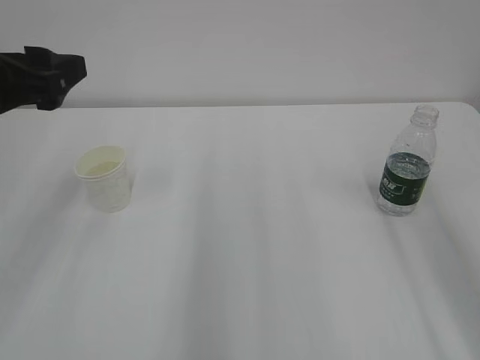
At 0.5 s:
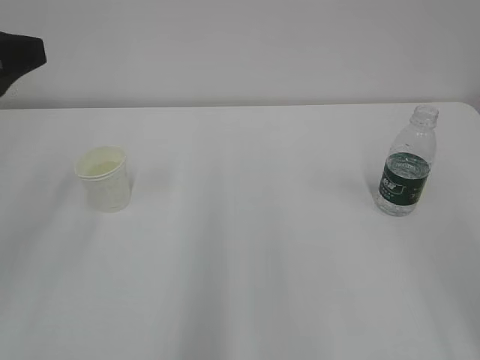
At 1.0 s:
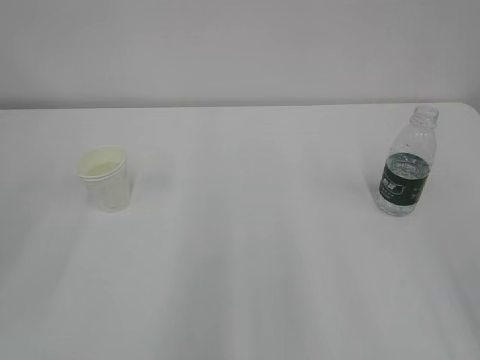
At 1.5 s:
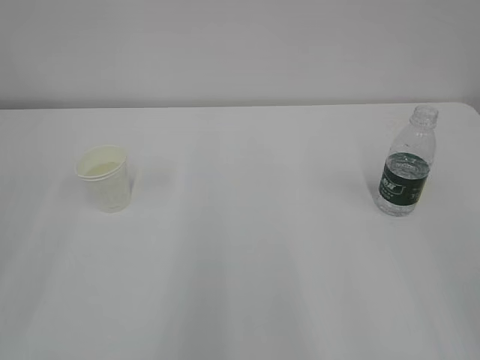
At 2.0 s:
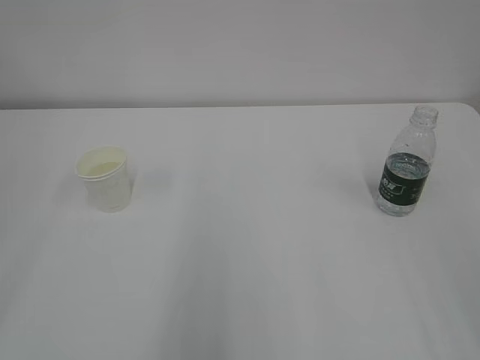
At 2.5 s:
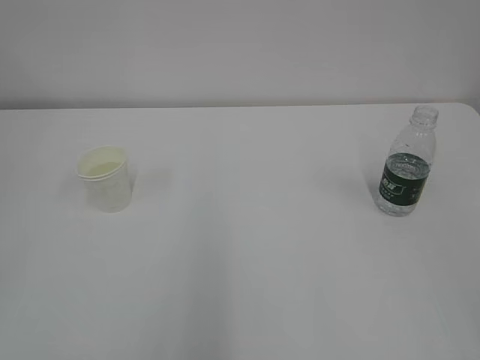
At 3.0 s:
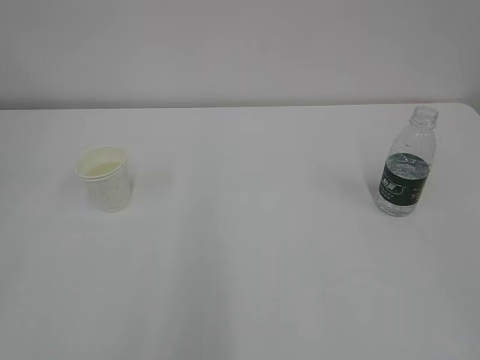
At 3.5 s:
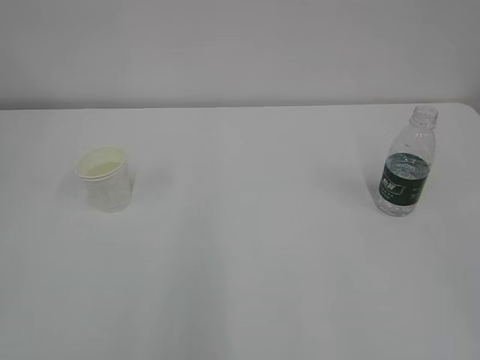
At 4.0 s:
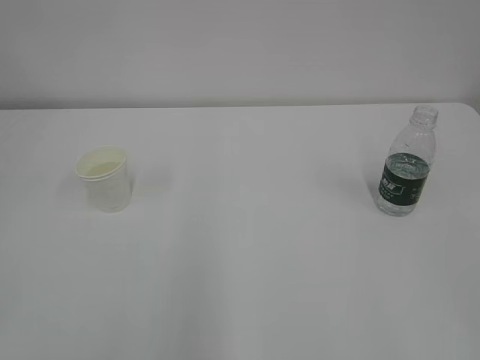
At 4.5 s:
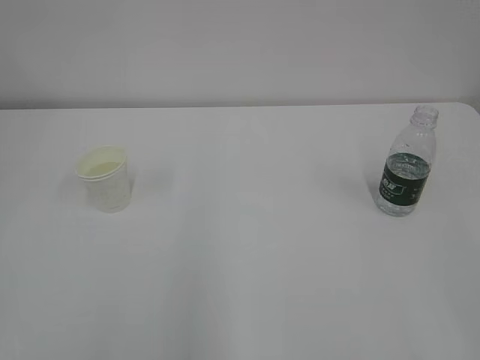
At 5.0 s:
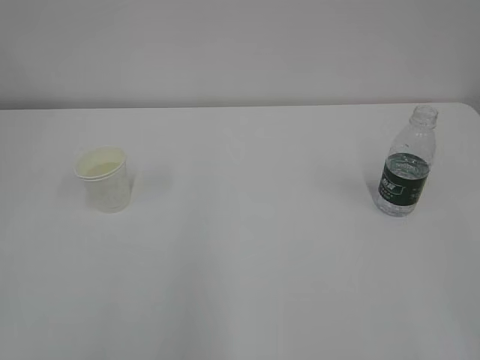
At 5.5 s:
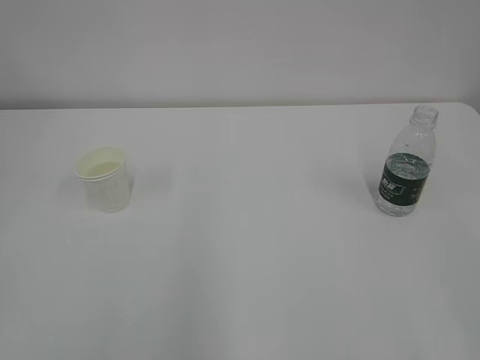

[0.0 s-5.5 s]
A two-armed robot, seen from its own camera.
0.0 to 2.0 s: The left gripper moves backward, approximately 20 cm.

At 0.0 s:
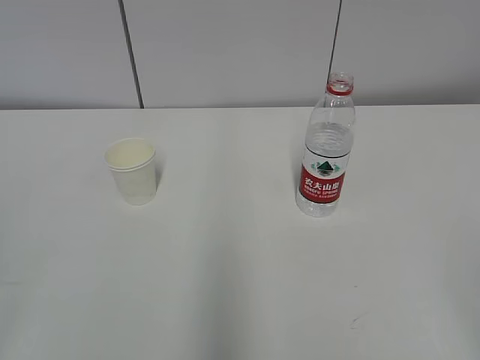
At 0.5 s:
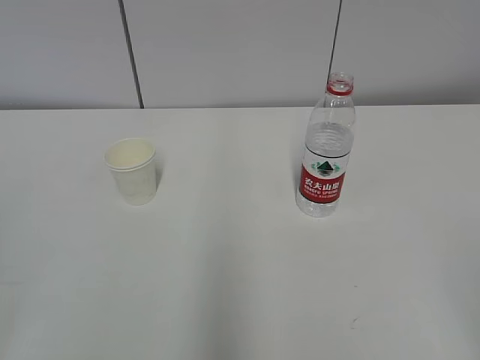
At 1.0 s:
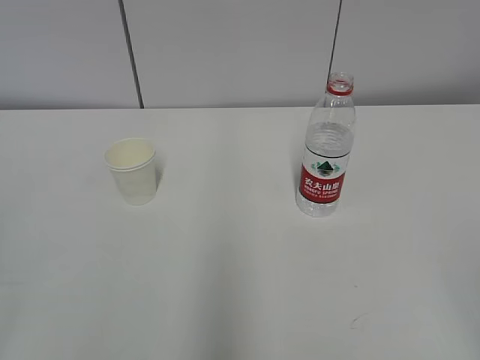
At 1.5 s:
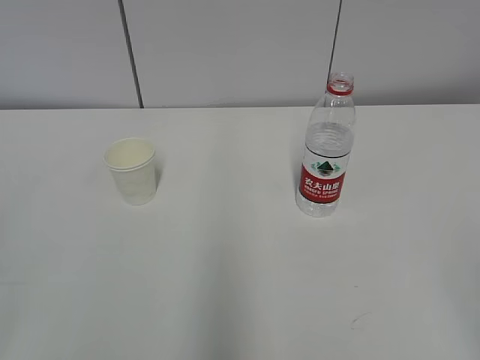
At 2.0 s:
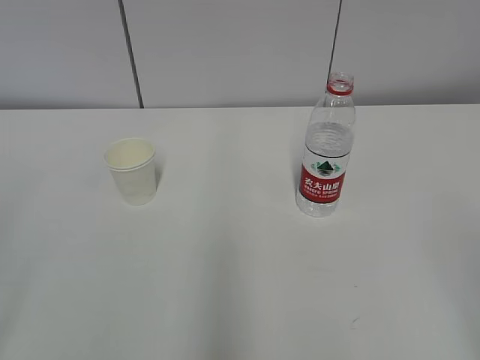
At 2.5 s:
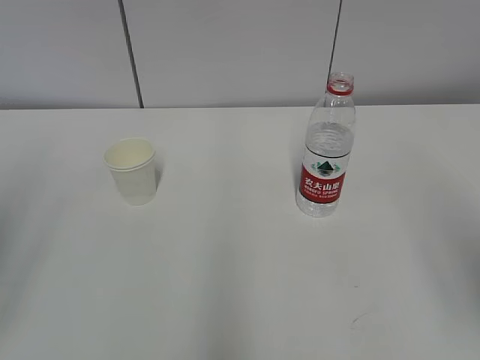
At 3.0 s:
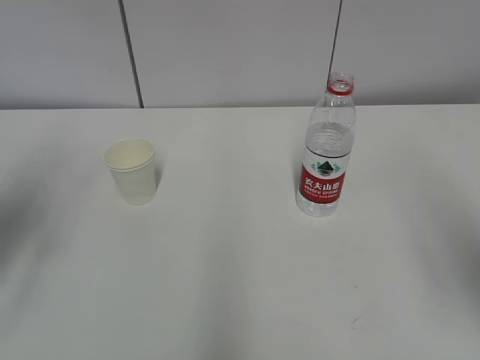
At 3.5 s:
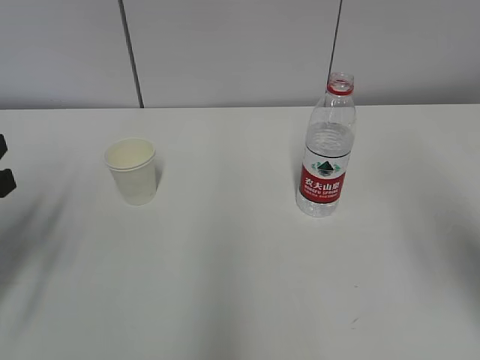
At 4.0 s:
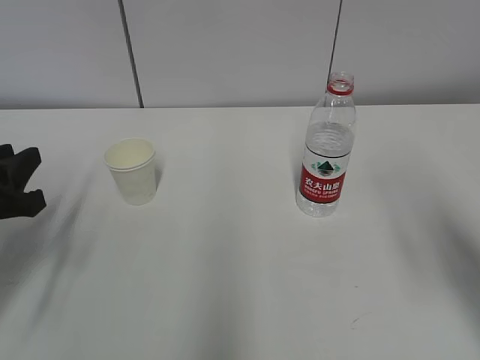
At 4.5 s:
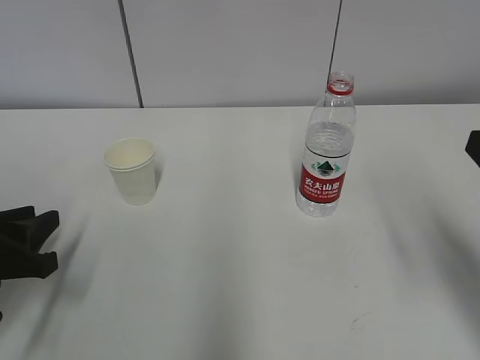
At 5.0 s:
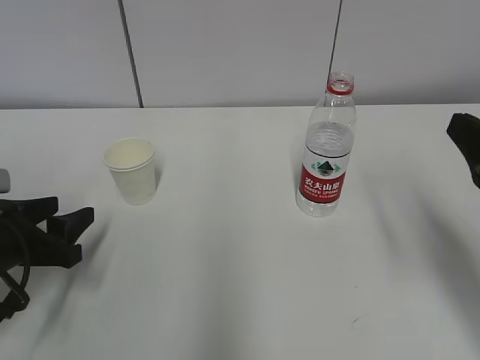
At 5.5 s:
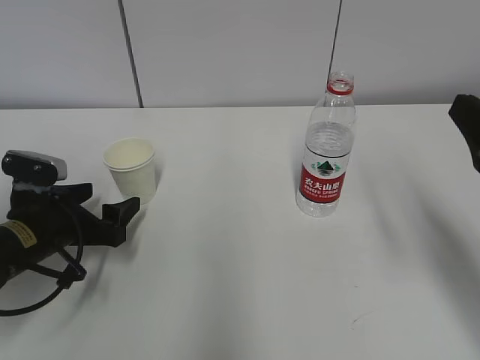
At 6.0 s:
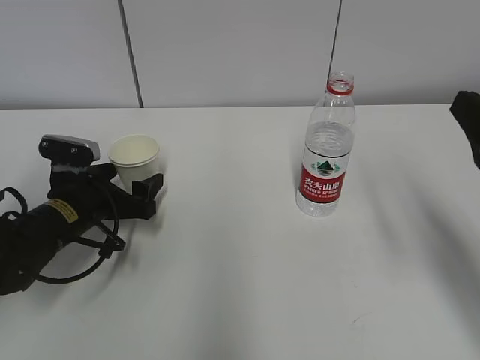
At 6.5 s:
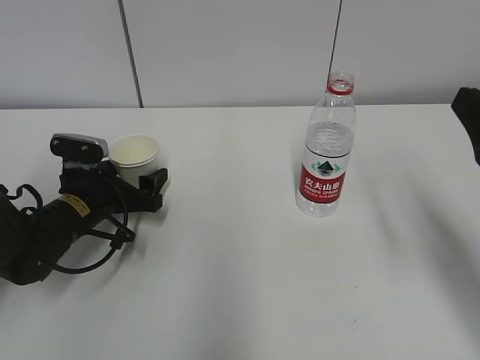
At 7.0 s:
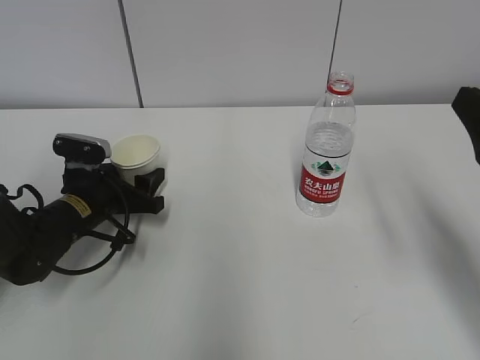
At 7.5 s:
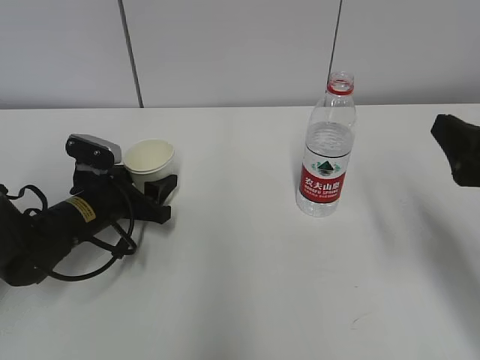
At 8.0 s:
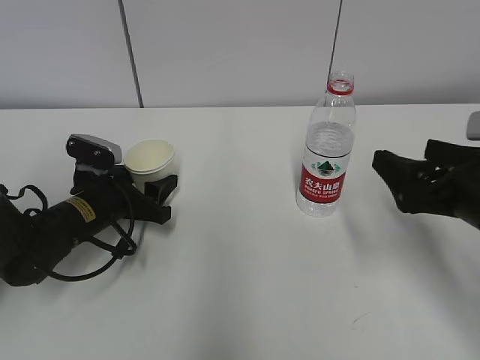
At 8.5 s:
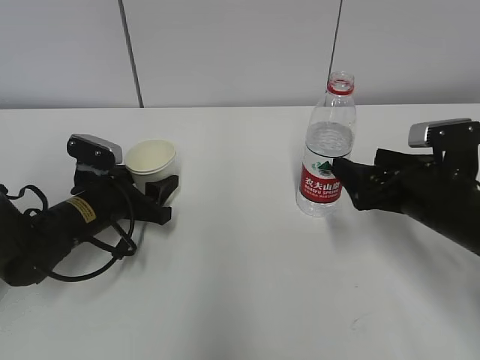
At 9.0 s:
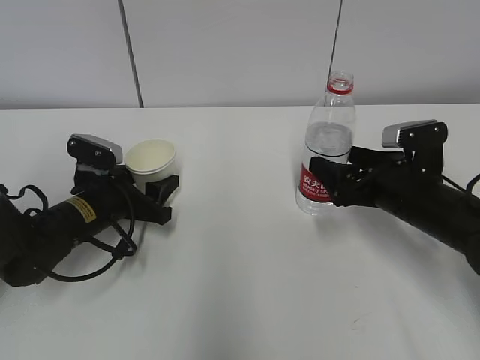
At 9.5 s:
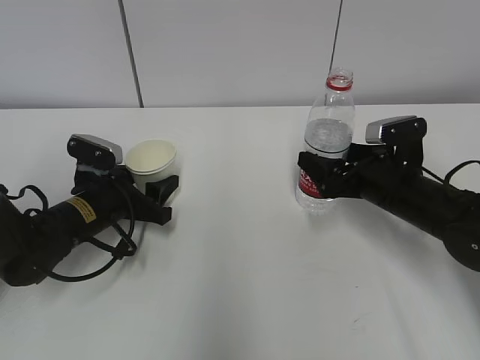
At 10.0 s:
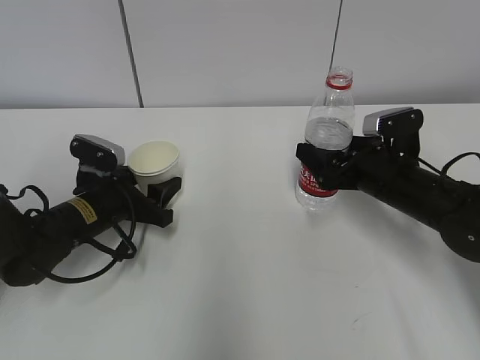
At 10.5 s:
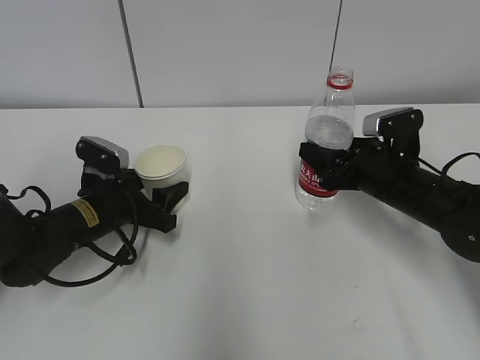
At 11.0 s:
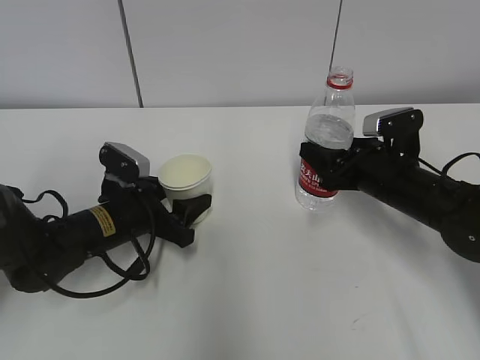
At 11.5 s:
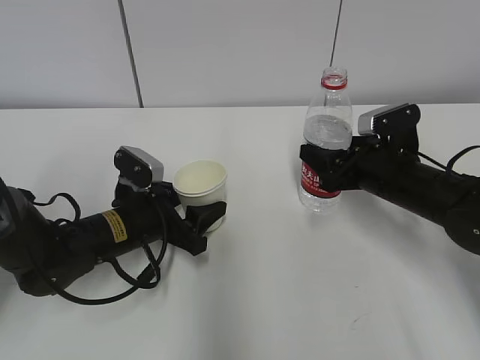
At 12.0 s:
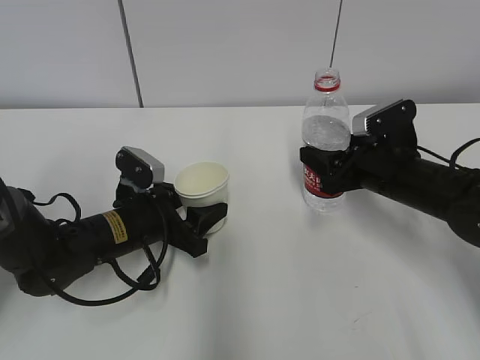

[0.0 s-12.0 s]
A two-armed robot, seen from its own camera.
Step, 0.0 to 6.0 s: Grab the paper cup with the left hand.
Step, 6.5 to 9.0 s: Grab the water bottle with the right hand.
2.0 to 4.0 s: The left gripper is displaced forward and downward by approximately 25 cm. The right gripper moves forward, about 15 cm.
4.0 to 6.0 s: The right gripper shifts by roughly 5 cm; the left gripper goes some 15 cm forward, downward and to the right, and opens its fingers.
6.0 to 8.0 s: The left gripper closes; the right gripper moves downward, roughly 5 cm.
8.0 to 10.0 s: The right gripper goes roughly 15 cm forward and downward.
10.0 to 12.0 s: The left gripper shifts approximately 5 cm to the right, while the right gripper closes its fingers.

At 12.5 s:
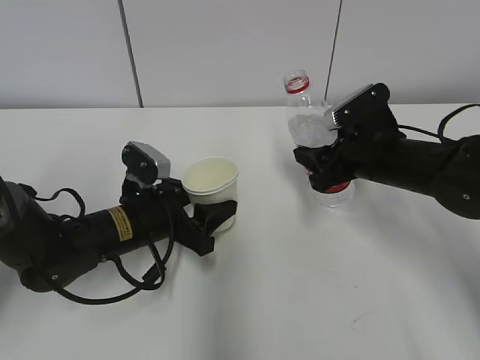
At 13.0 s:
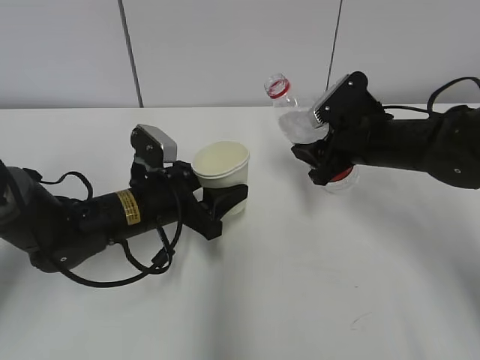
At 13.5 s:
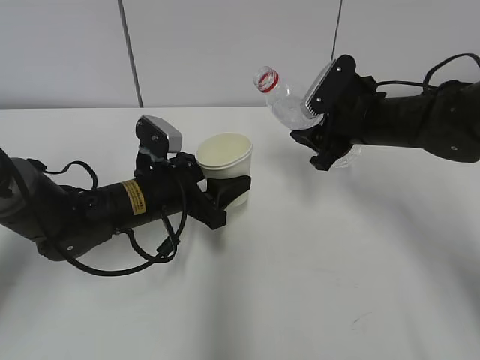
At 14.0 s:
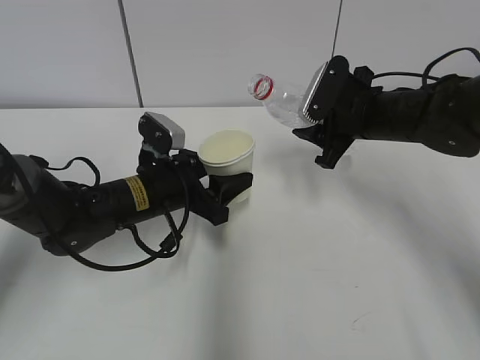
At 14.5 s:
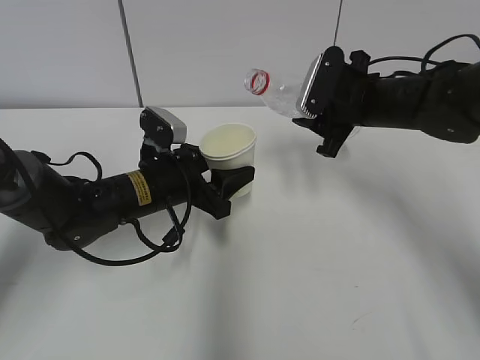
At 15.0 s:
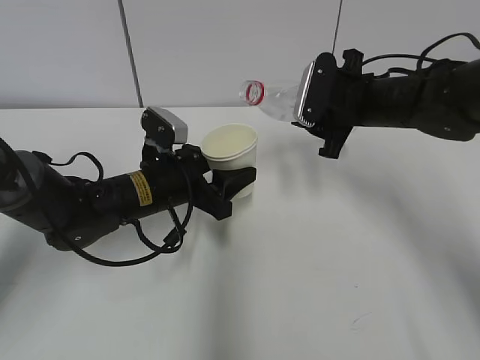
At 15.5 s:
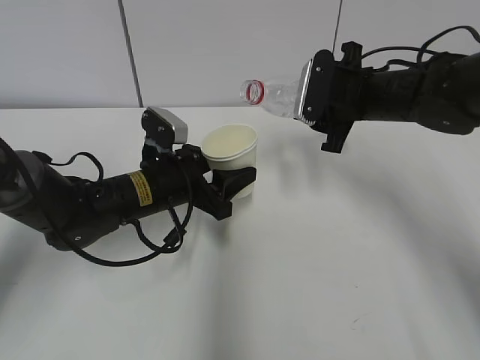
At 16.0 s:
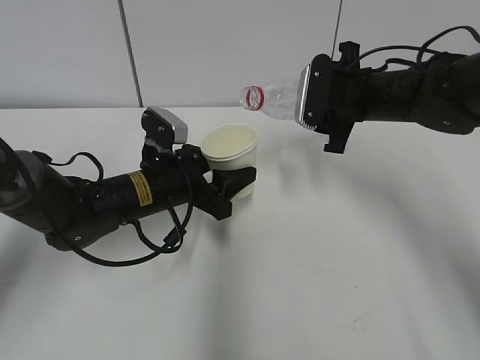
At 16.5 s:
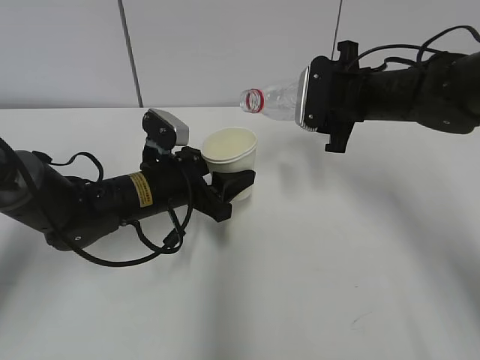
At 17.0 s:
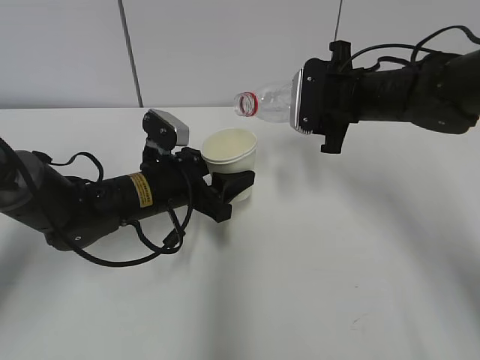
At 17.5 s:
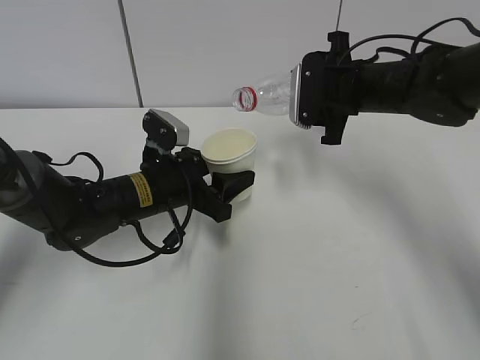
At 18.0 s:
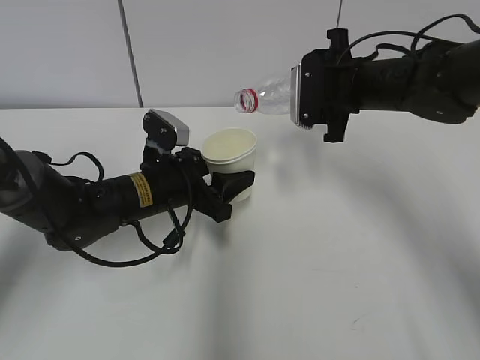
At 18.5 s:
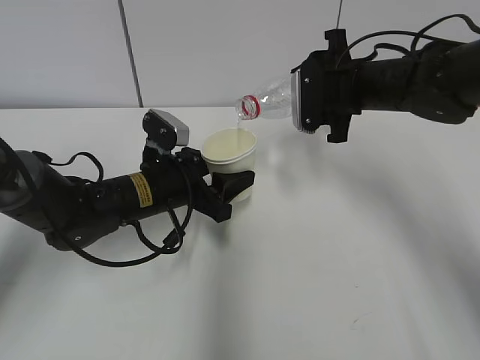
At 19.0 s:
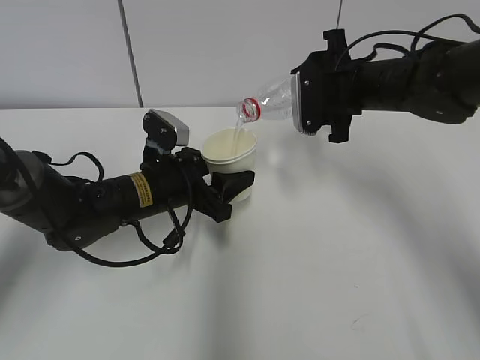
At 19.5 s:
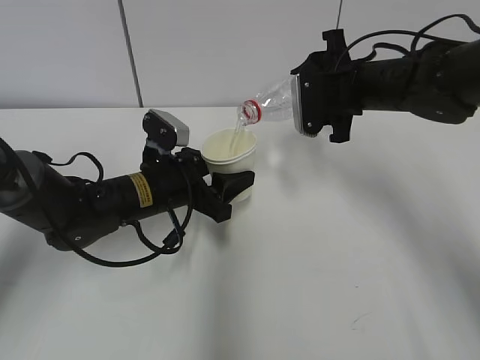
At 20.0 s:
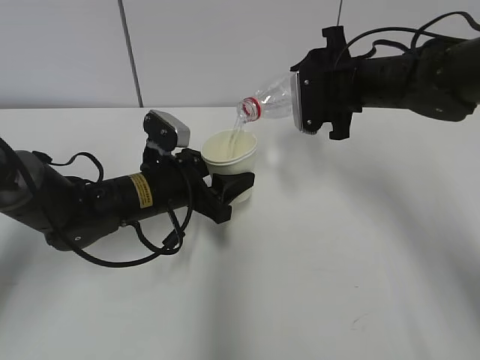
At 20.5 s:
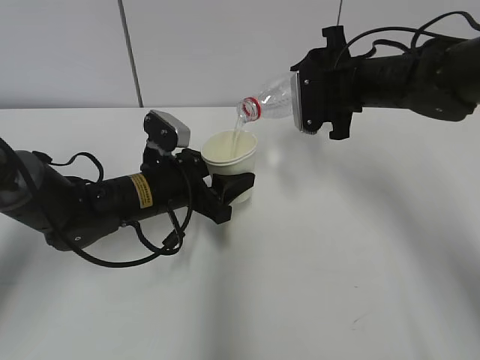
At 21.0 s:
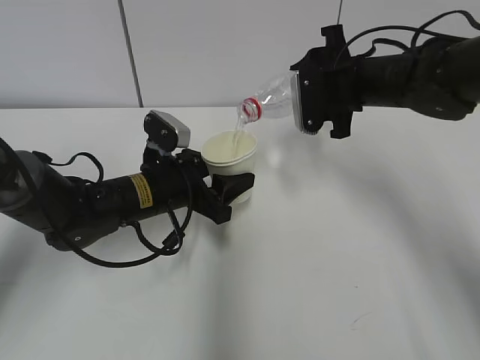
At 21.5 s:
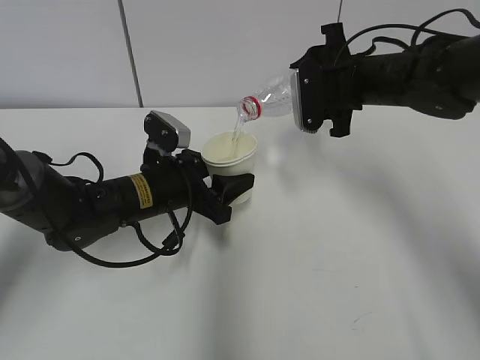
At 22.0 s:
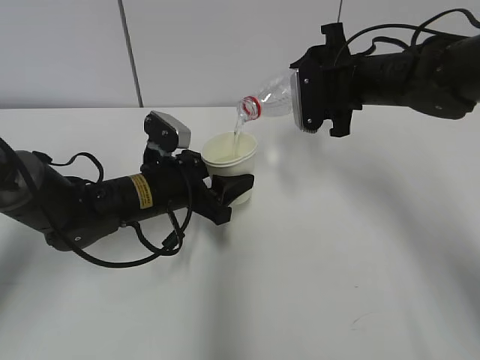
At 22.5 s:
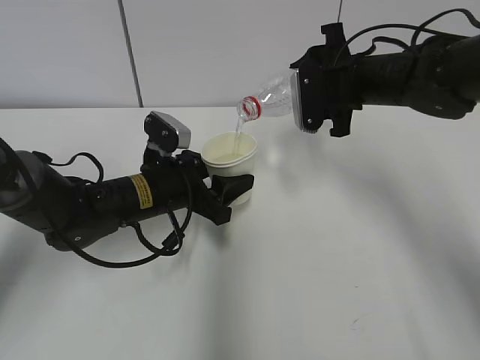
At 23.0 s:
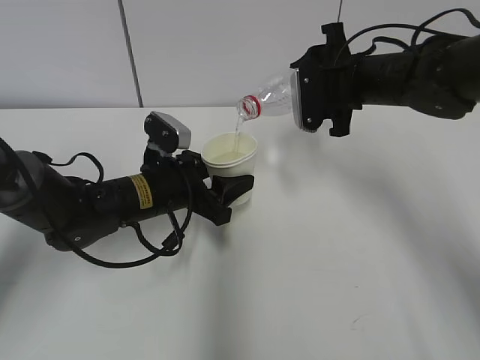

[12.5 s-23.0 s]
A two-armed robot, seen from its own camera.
Step, 12.5 to 15.0 s: Lift the paper cup with the left hand.
Step, 15.5 to 19.5 s: Pour water with the right hand.
Step, 20.0 to 21.5 s: Collect water with the right hand.
12.5 to 14.5 s: The right gripper moves upward and forward, approximately 5 cm.
14.5 to 16.5 s: The grippers make only small movements.
16.5 to 19.0 s: The grippers stay close to where they were, moving slightly.
19.0 to 23.0 s: Both grippers stay about where they are.
